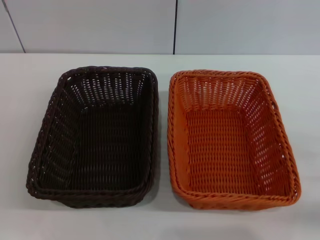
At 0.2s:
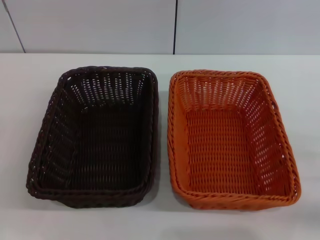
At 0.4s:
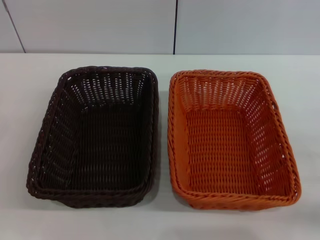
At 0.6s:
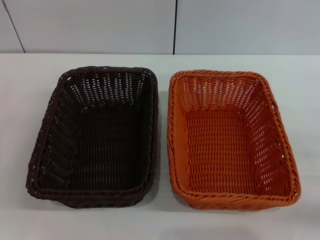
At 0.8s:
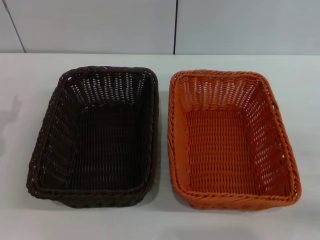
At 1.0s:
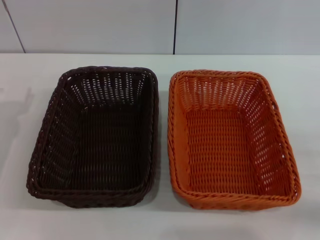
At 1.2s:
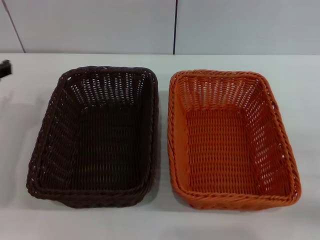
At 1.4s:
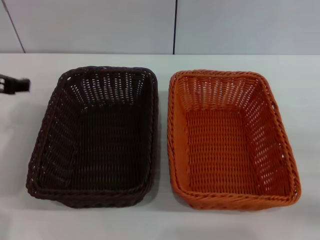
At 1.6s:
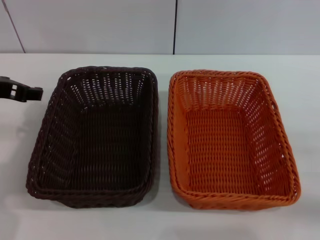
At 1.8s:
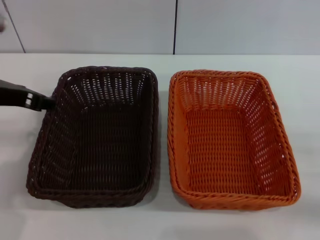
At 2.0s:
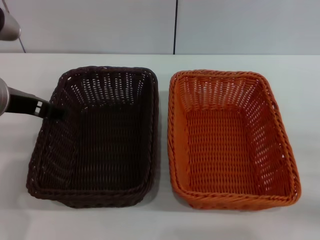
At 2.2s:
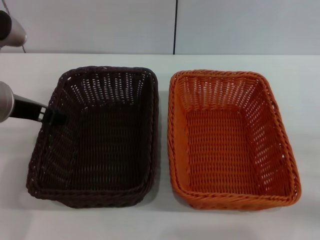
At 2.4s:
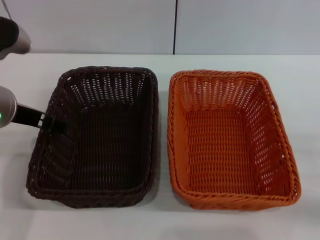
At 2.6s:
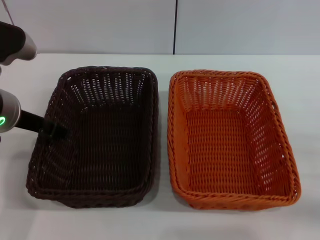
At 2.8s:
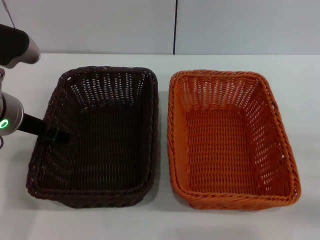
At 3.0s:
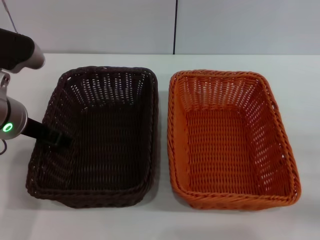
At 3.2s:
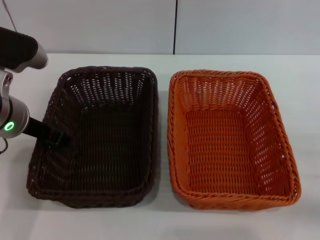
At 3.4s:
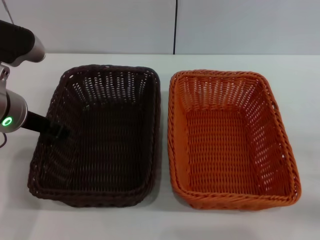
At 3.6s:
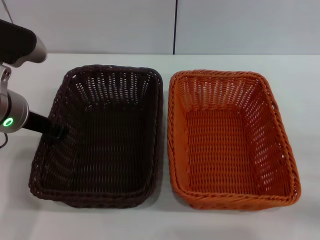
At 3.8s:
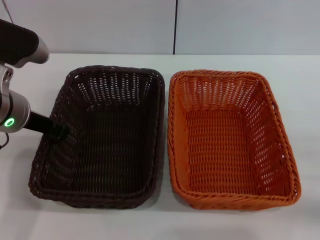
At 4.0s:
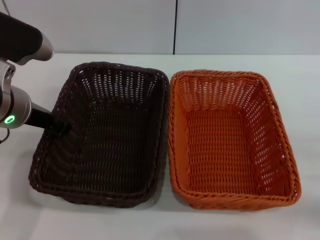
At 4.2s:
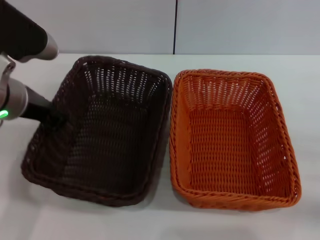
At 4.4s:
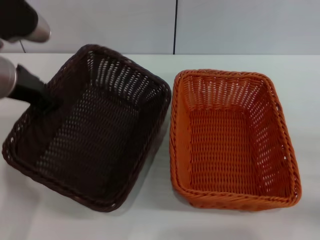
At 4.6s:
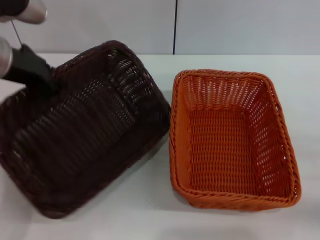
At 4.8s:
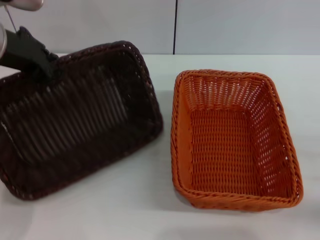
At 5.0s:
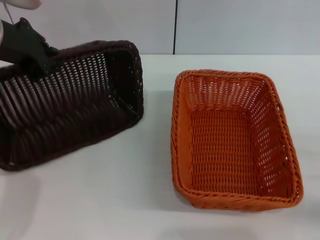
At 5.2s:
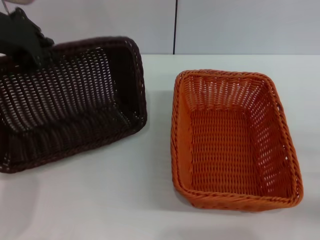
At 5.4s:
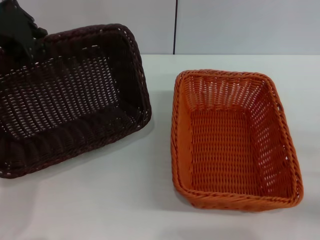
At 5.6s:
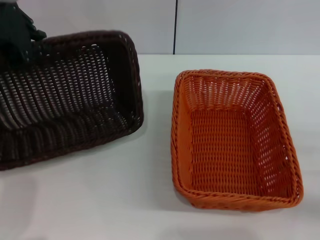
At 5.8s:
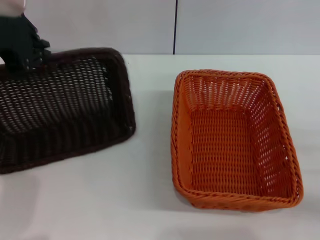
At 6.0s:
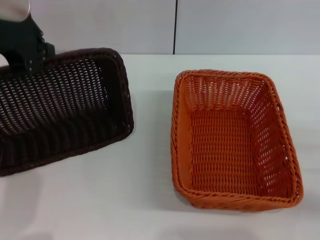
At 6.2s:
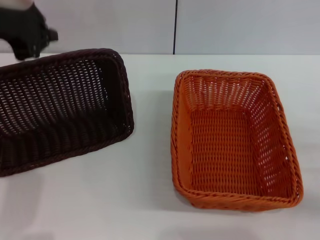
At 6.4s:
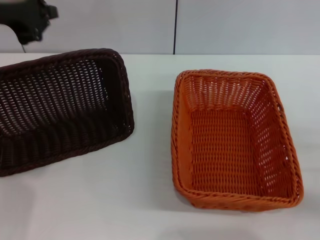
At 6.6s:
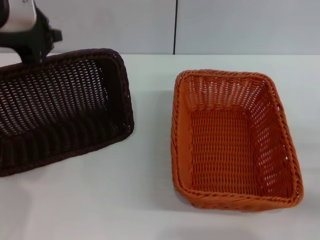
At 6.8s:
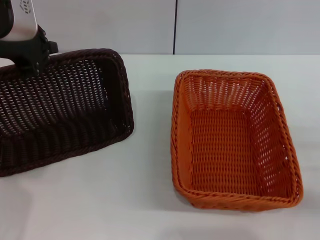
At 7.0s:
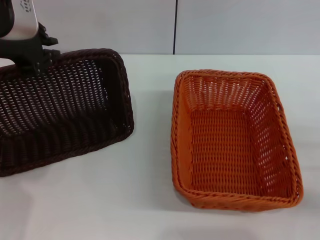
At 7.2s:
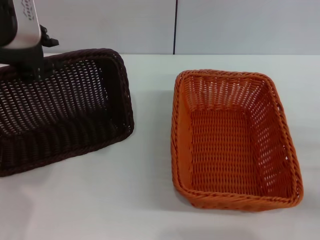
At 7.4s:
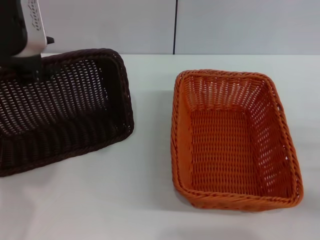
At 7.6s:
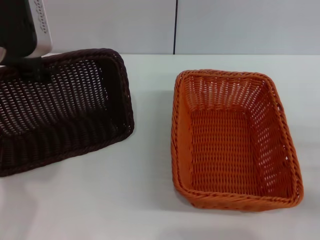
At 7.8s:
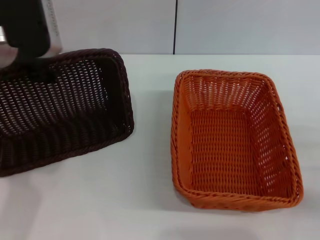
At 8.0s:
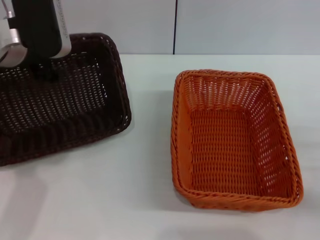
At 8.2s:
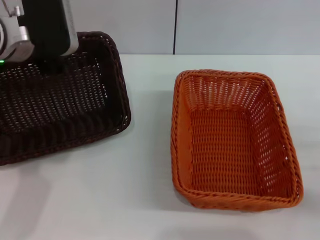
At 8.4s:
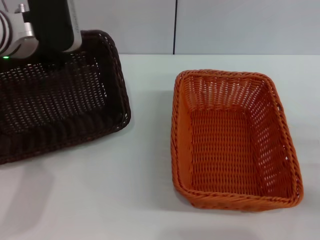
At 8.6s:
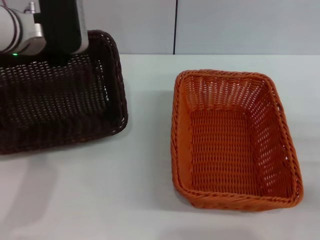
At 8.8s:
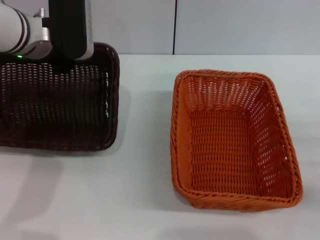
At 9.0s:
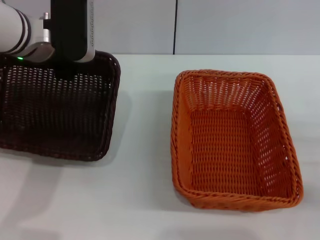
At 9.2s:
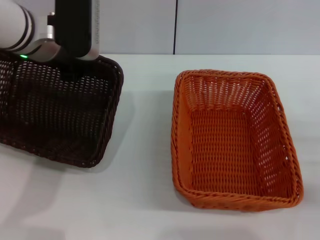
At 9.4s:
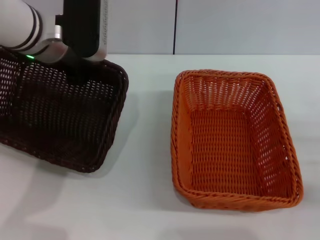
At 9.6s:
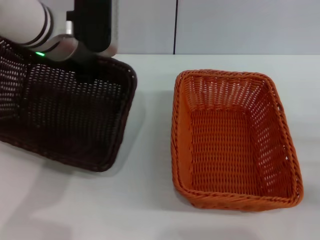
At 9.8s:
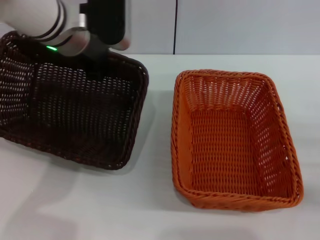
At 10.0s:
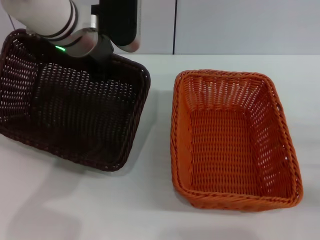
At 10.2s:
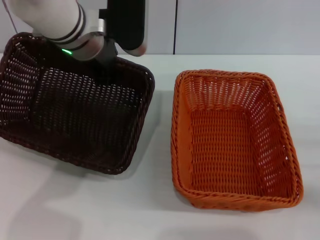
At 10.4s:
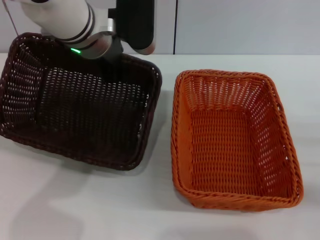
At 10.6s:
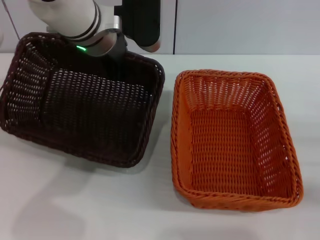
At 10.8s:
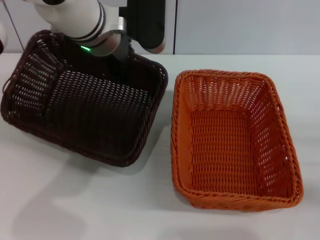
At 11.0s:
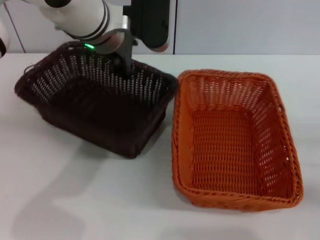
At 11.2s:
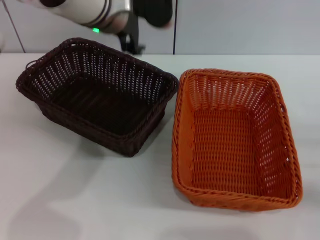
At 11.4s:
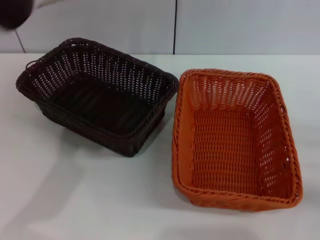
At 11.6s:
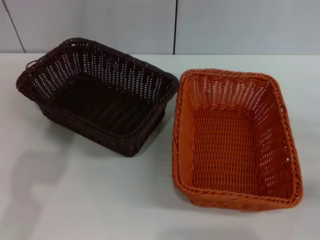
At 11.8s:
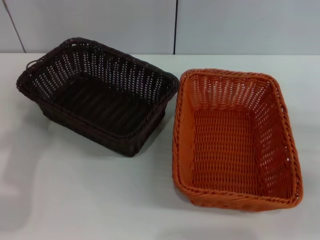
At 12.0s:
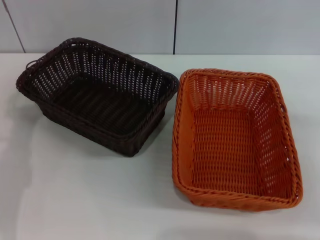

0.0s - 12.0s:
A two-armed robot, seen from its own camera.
Step, 0.0s - 4.6s: Pick up the dark basket with the left gripper.
Step, 4.8s - 11.0s: Place the dark basket in the center of view with the left gripper.
0.0s - 1.6s: The left gripper is displaced upward, to the right and forward by roughly 20 cm.
1.6s - 3.0s: The left gripper shifts by roughly 5 cm.
3.0s - 4.4s: The left gripper travels upward by about 5 cm, and closes.
4.4s - 6.0s: The left gripper moves upward, approximately 10 cm.
6.0s - 7.6s: The left gripper opens its fingers.
7.6s - 9.0s: The left gripper travels forward and downward by some 10 cm, and opens and closes again.
9.0s - 10.4s: The left gripper heads to the right, covering about 10 cm.
10.4s - 12.0s: The left gripper is displaced to the left, backward and downward by some 25 cm, and opens. The right gripper changes place by approximately 5 cm.

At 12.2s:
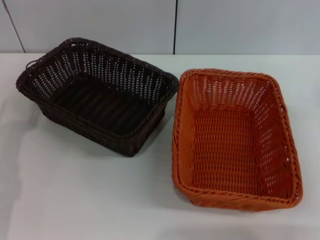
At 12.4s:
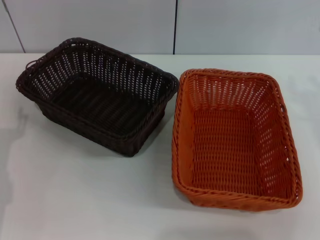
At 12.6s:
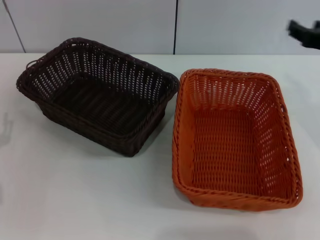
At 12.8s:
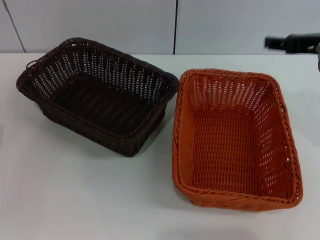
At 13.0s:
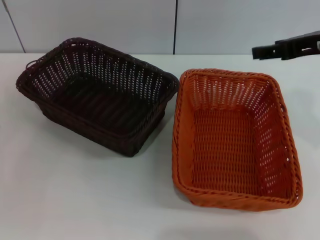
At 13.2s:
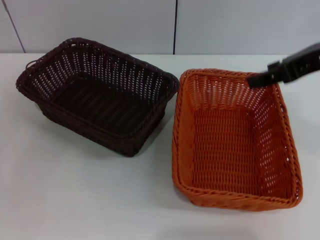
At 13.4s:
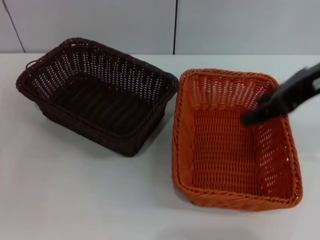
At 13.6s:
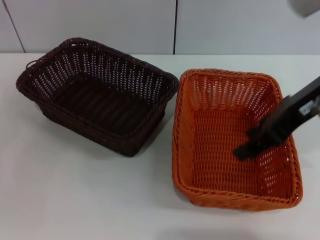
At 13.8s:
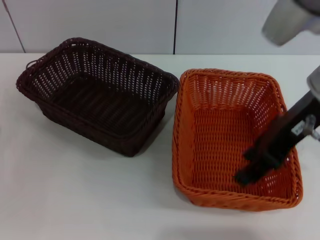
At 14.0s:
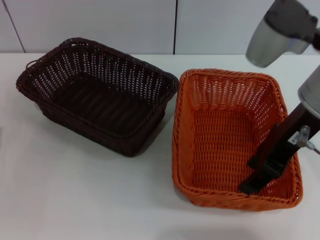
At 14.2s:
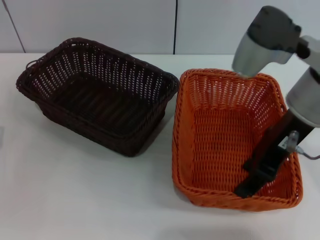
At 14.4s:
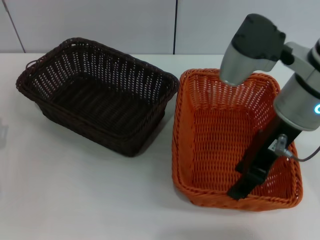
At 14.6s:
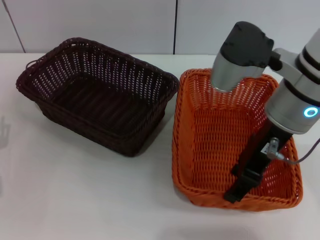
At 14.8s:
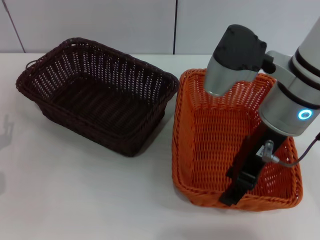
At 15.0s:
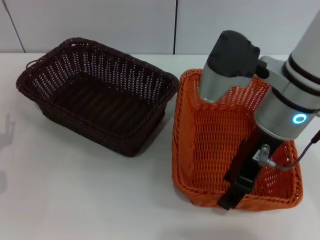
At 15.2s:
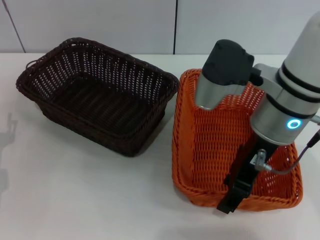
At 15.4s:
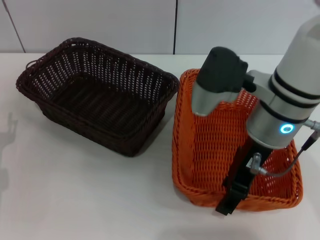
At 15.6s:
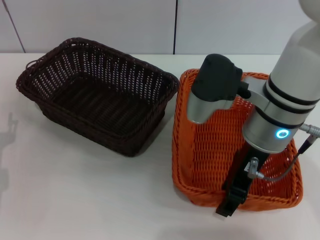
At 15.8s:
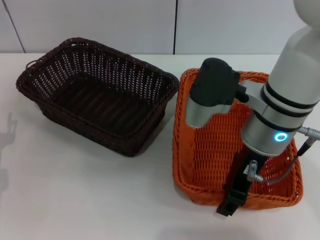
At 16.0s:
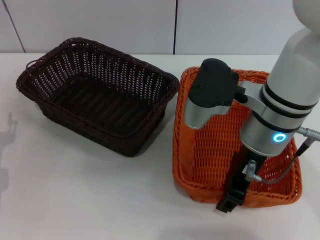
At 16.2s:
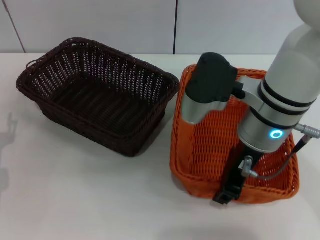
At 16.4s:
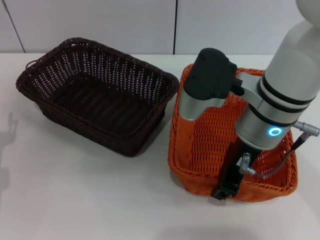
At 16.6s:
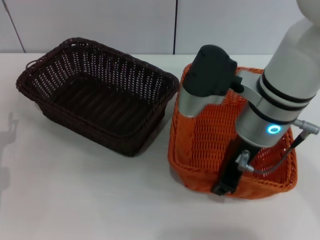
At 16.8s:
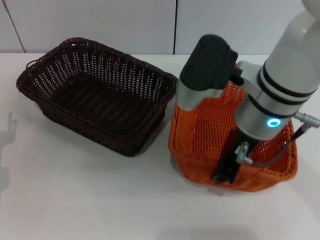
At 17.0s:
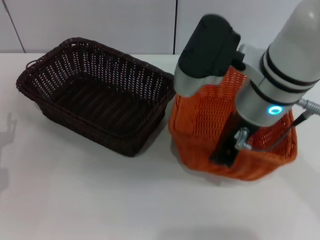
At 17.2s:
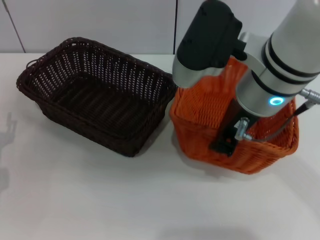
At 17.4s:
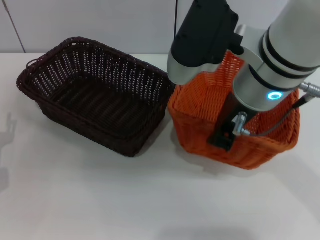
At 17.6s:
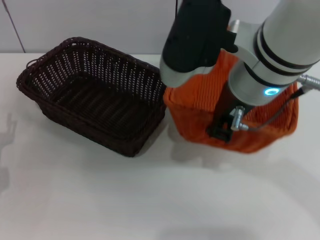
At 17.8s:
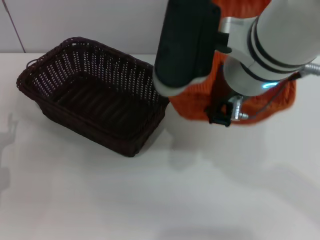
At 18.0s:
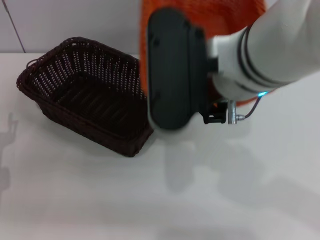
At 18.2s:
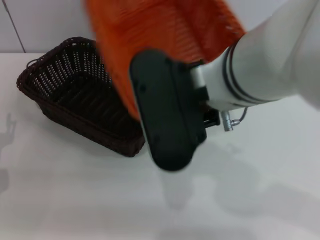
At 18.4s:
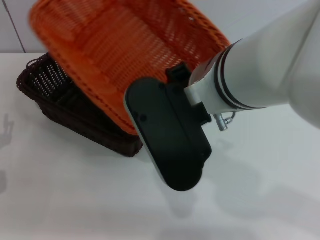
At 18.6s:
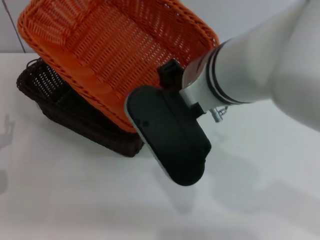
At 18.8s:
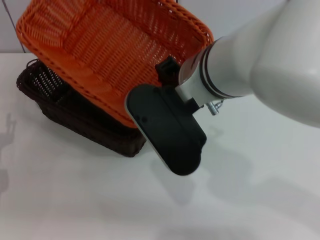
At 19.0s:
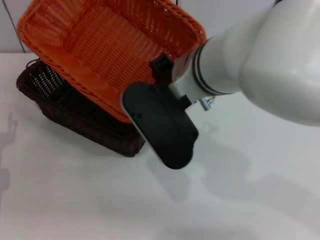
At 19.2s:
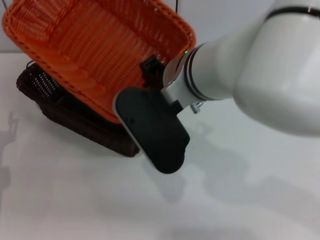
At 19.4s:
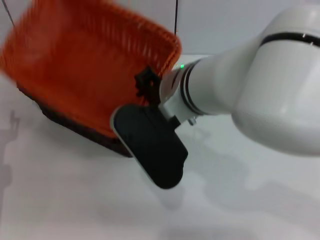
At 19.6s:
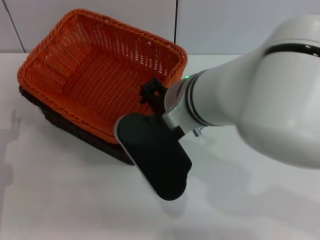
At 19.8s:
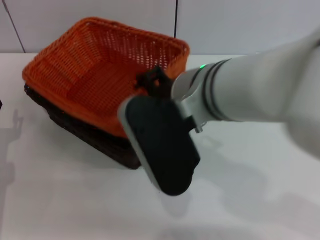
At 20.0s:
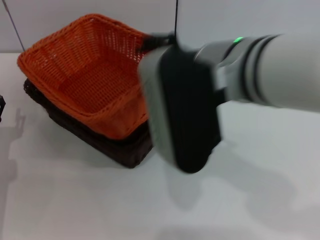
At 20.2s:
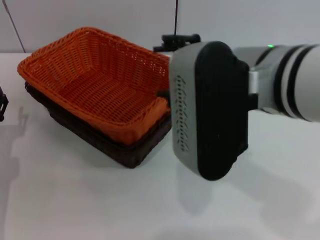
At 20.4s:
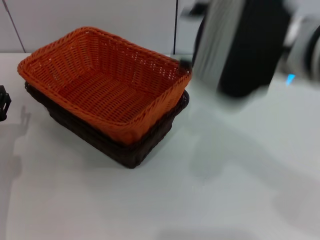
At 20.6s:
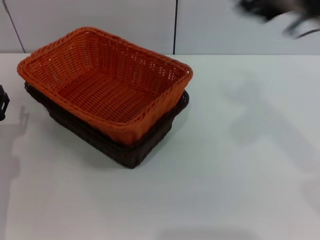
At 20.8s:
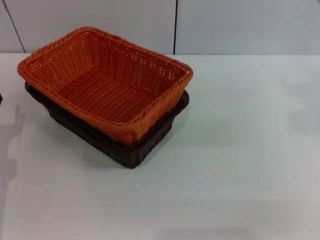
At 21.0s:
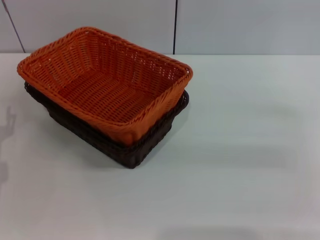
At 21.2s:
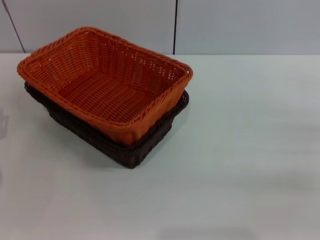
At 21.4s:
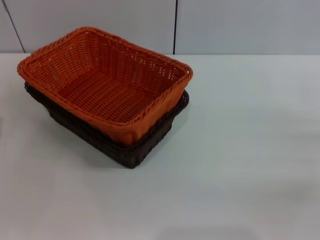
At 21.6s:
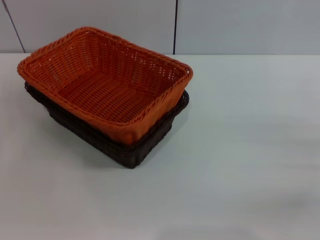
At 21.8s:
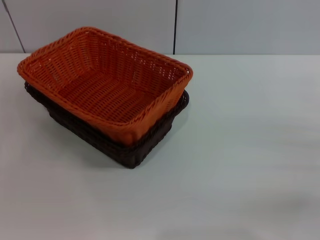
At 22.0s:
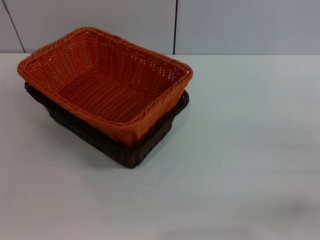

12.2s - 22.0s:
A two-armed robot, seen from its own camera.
Step, 12.2s - 16.8s: Pick up the light basket with the right gripper.
Step, 17.0s - 20.0s: Place the light basket on the dark basket with the right gripper.
12.2s - 13.6s: The right gripper shifts about 20 cm upward and to the left.
13.6s - 15.0s: The right gripper is displaced to the left and downward by about 10 cm.
15.0s - 16.4s: The right gripper closes its fingers.
16.4s - 17.8s: The right gripper shifts about 10 cm upward.
17.8s - 19.2s: The right gripper goes some 5 cm downward.
19.2s - 20.6s: The right gripper shifts approximately 15 cm to the right, and opens up.
20.6s - 22.0s: The right gripper is displaced downward, to the right and backward by some 25 cm.
